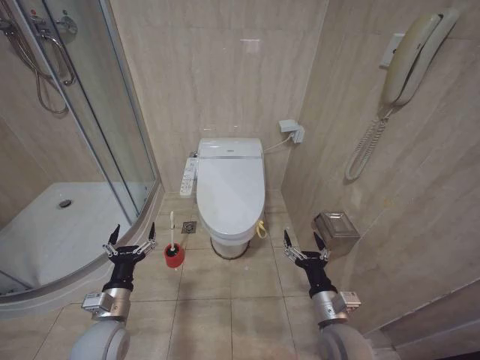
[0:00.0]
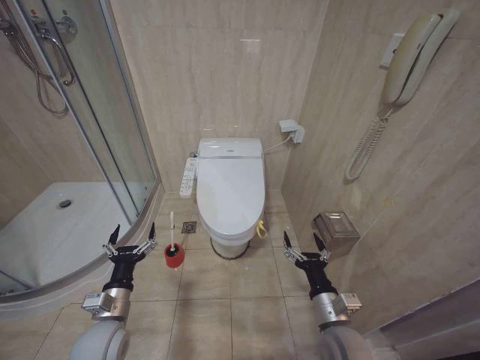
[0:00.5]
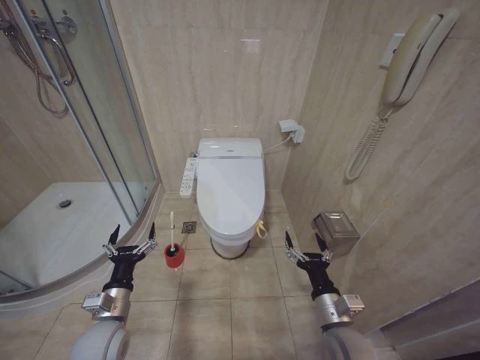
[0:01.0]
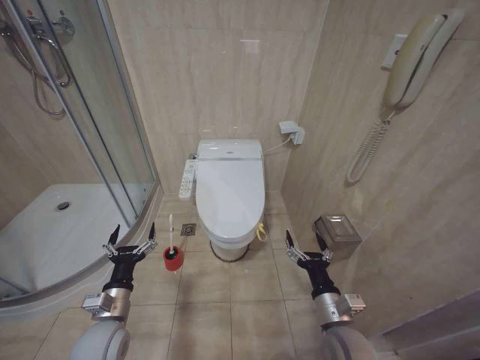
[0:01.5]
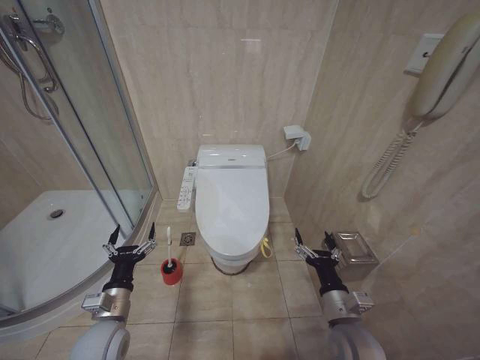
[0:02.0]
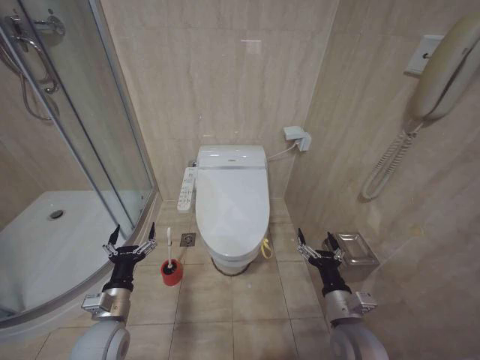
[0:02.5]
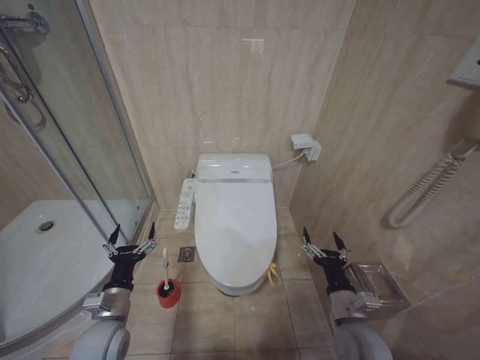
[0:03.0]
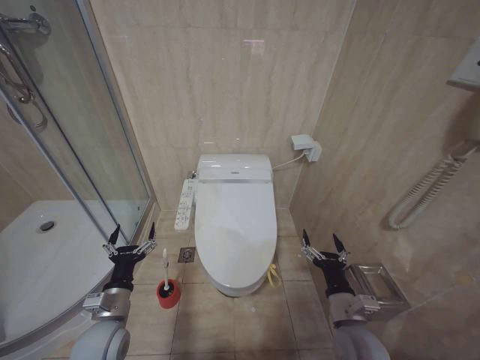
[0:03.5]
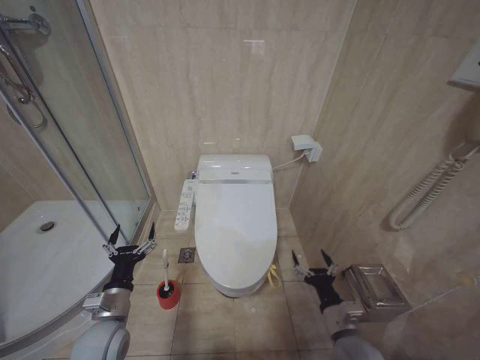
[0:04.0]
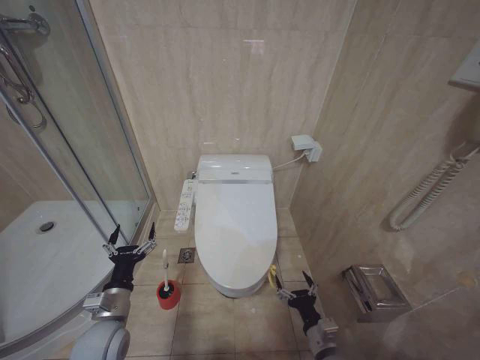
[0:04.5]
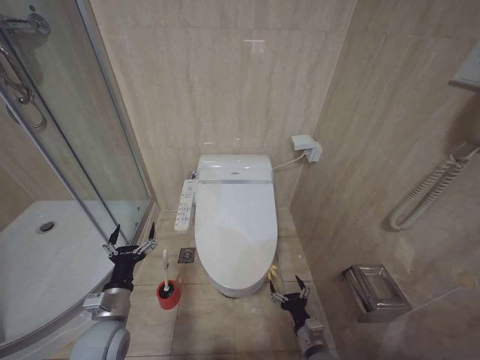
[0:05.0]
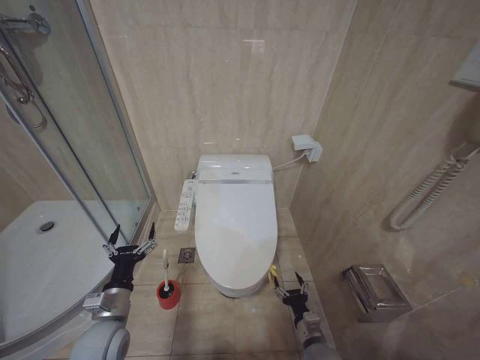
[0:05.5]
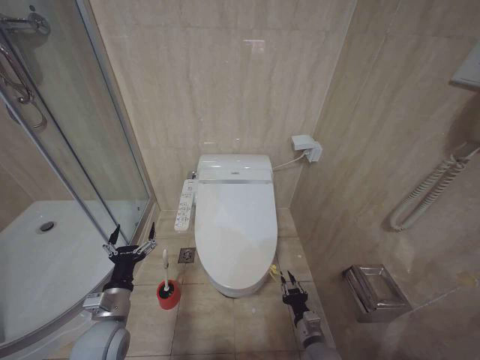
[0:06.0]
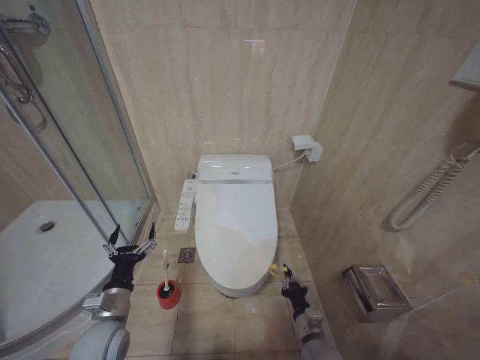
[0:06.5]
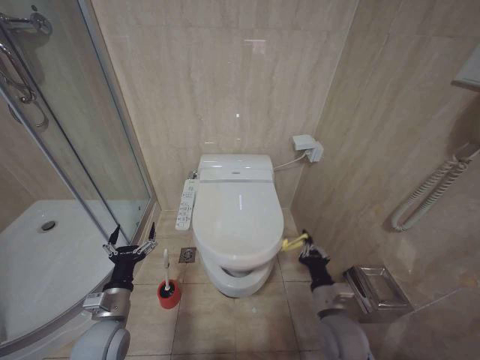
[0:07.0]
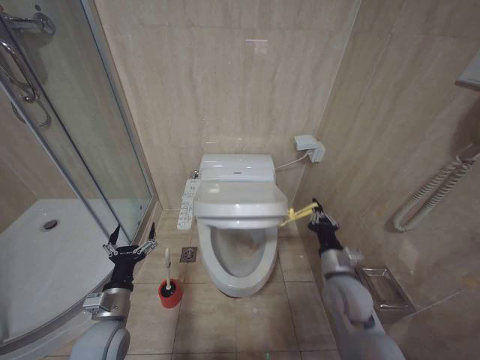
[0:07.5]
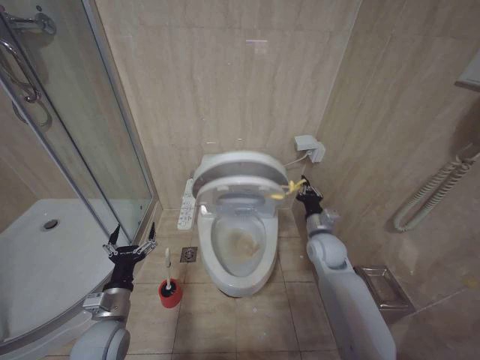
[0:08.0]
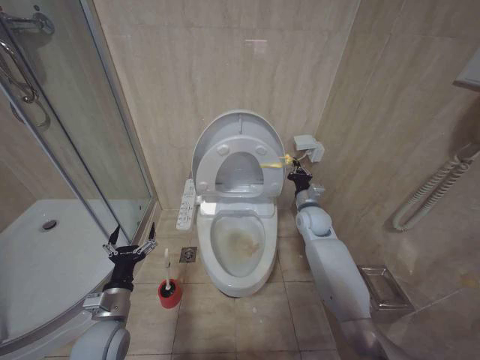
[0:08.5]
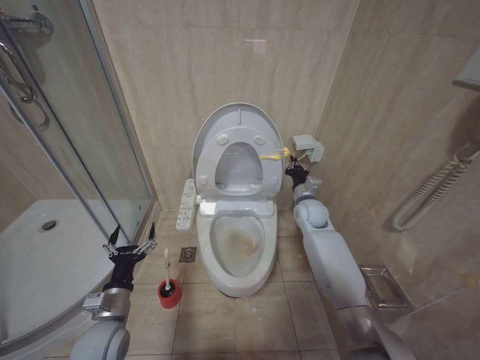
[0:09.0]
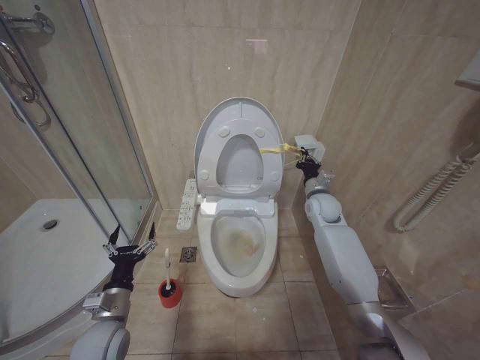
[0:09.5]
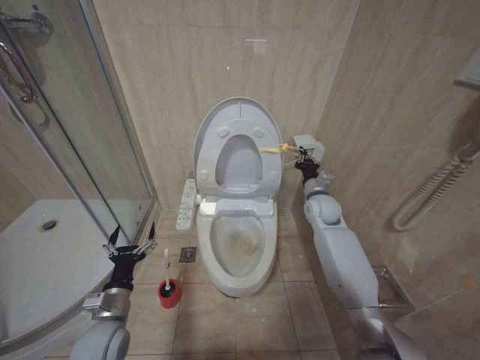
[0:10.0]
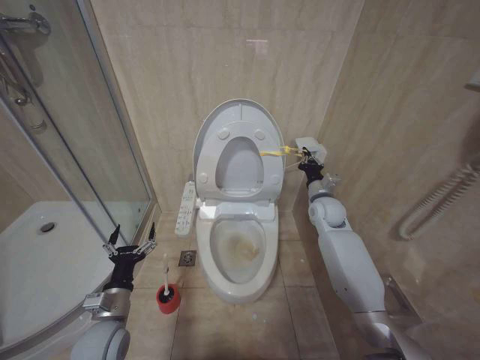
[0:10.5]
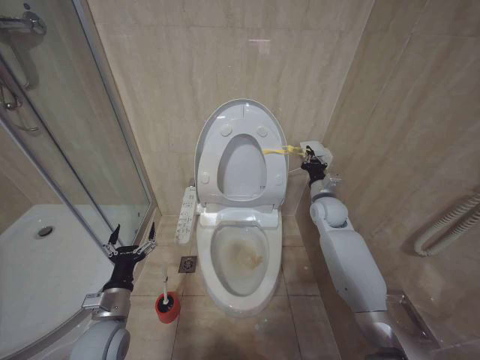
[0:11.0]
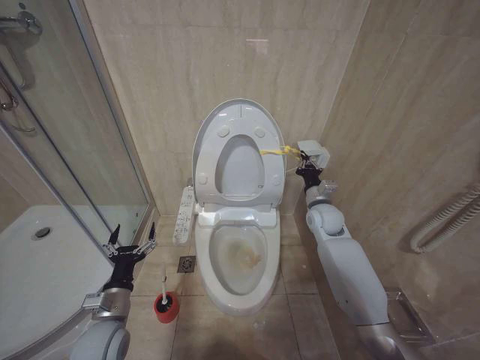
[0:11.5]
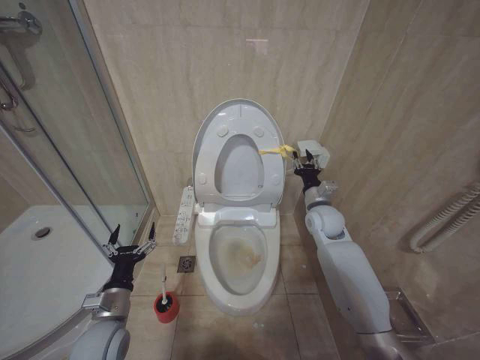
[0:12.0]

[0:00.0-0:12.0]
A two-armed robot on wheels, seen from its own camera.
Task of the whole recording: Open the toilet lid, clean the toilet bowl with a toilet brush, close the toilet lid, and flush.
0:02.0 to 0:04.0: The grippers make only small movements.
0:04.0 to 0:06.0: The right gripper goes some 15 cm downward, and closes.
0:06.0 to 0:08.0: The right gripper travels upward and forward by approximately 30 cm, and closes its fingers.
0:08.0 to 0:10.0: The right gripper moves forward and upward, about 15 cm.
0:10.0 to 0:12.0: The right gripper opens up.

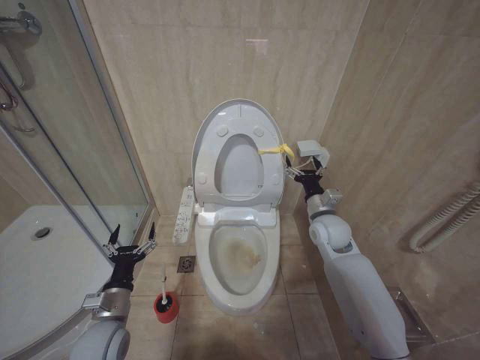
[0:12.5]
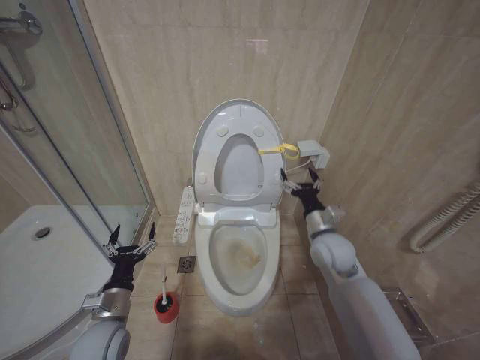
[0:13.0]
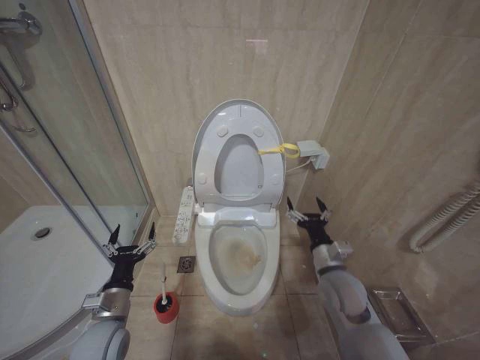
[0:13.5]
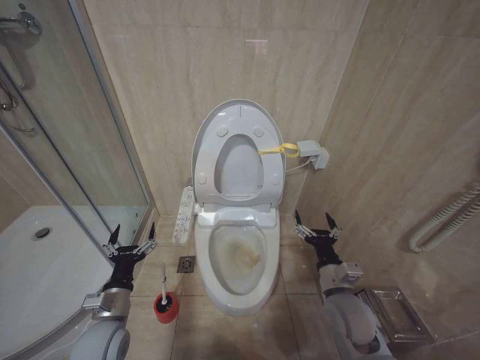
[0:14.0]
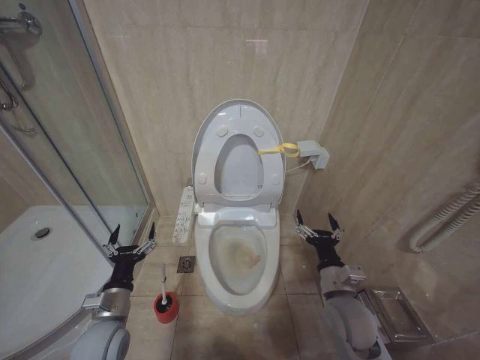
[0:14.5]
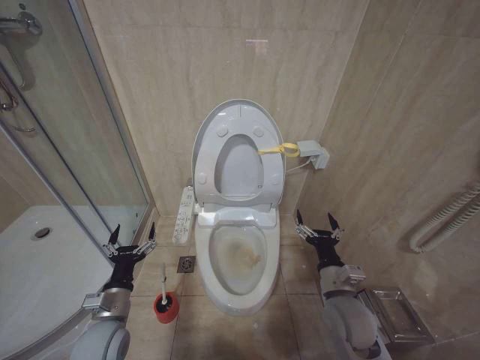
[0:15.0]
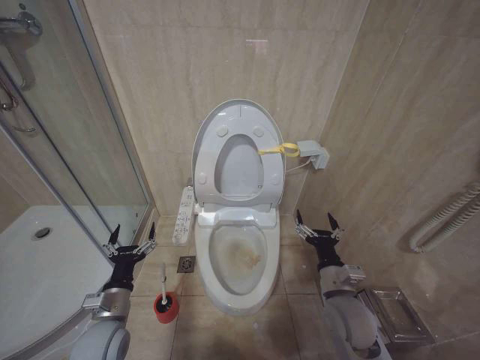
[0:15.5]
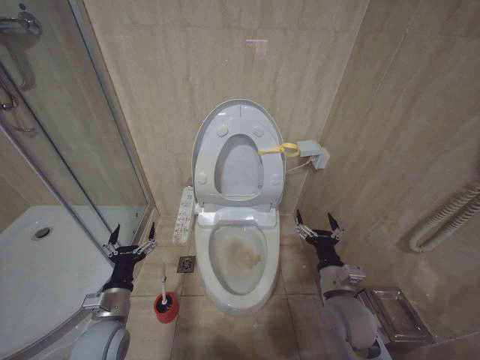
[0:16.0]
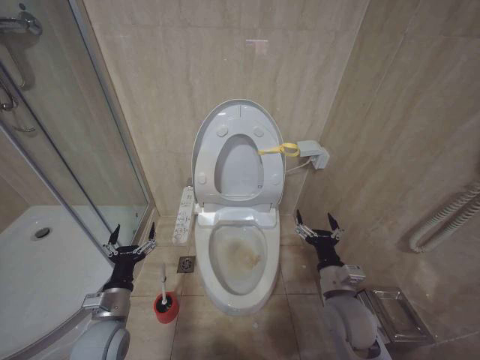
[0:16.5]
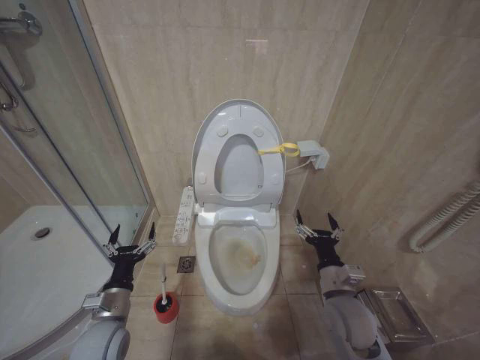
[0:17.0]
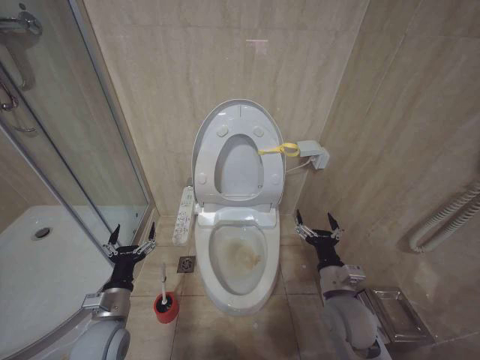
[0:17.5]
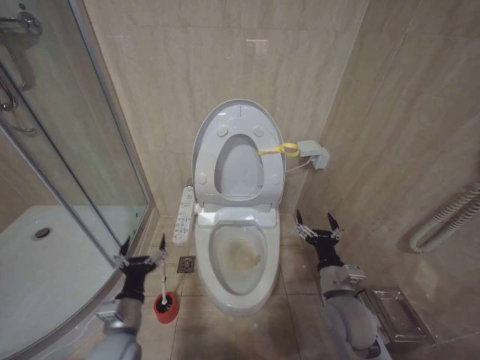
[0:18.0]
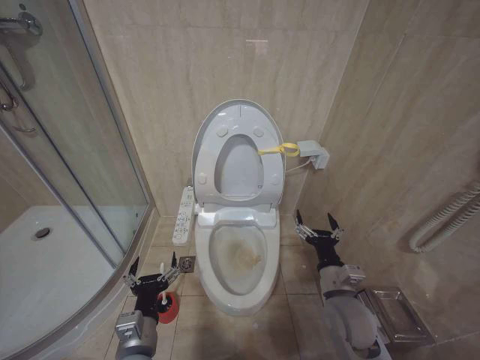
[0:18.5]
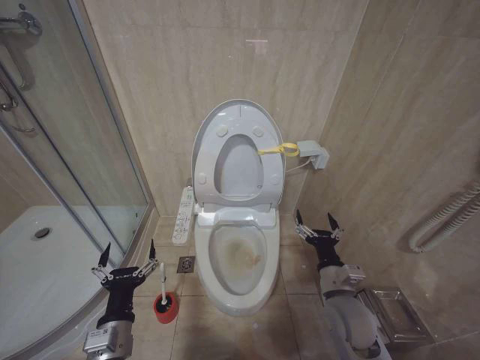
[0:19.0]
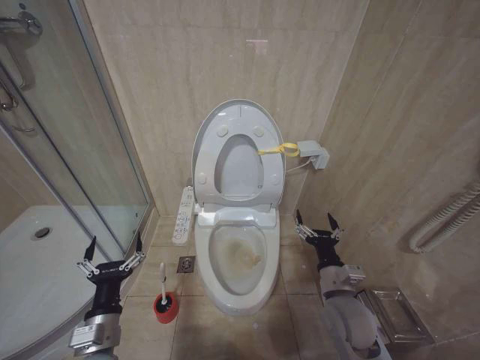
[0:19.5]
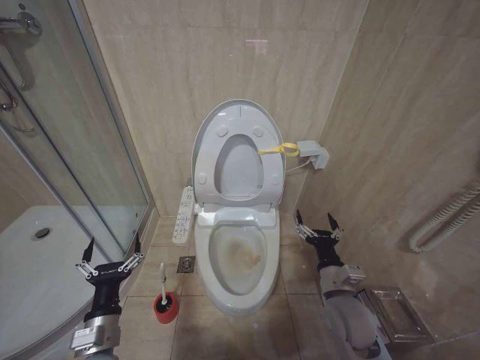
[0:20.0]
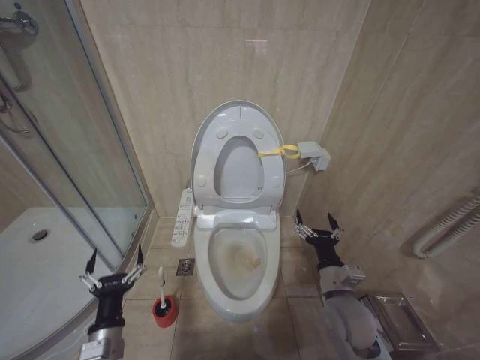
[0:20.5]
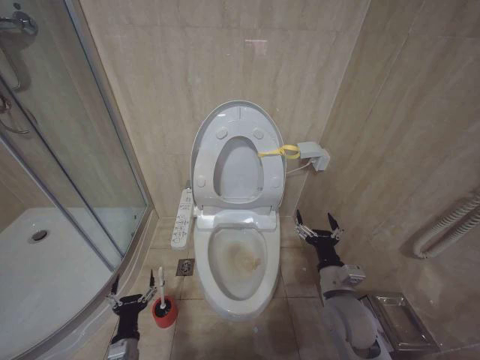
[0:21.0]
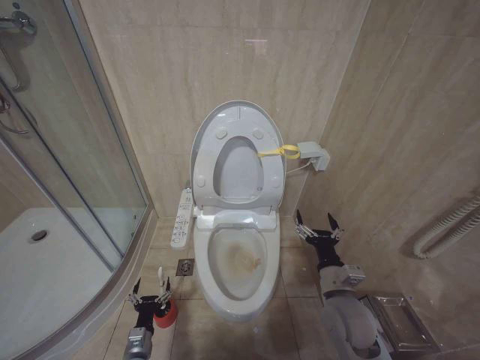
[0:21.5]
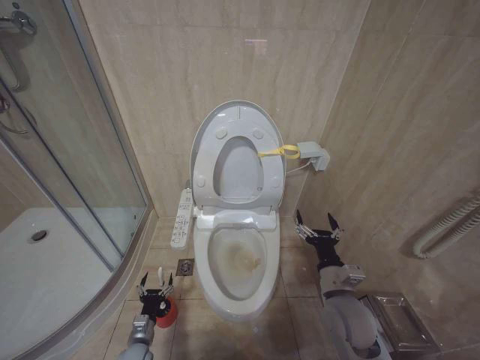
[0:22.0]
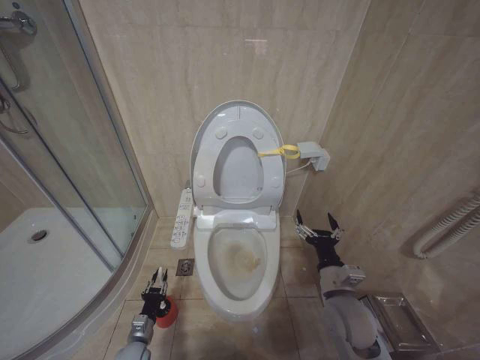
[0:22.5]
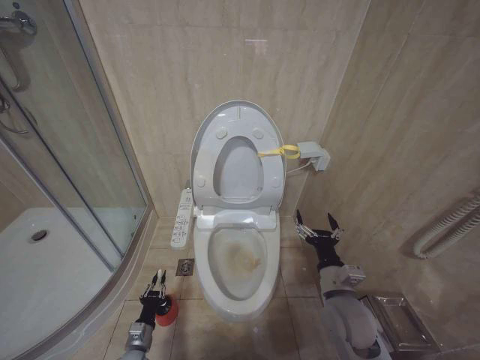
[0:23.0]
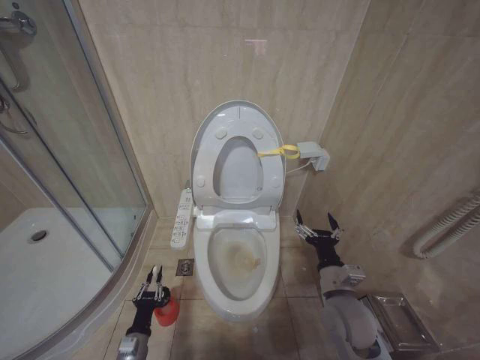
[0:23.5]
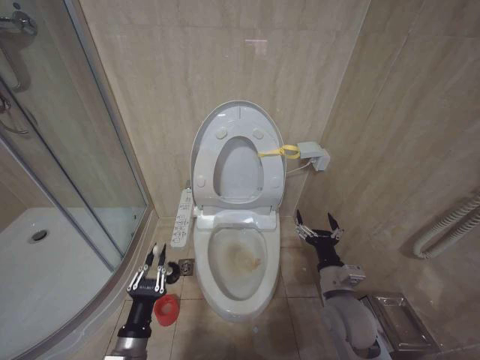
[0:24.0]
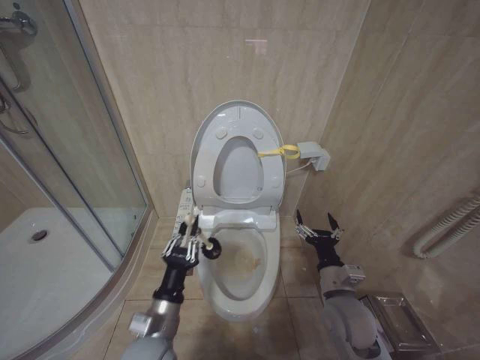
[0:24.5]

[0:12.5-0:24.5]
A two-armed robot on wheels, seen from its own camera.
Task of the whole recording: Open the toilet lid, clean the toilet bowl with a toilet brush, close the toilet lid, and flush.
0:12.5 to 0:14.5: The right gripper travels backward and downward by approximately 20 cm.
0:14.5 to 0:16.5: Both grippers stay about where they are.
0:16.5 to 0:18.5: The left gripper shifts approximately 10 cm to the right and backward.
0:18.5 to 0:20.5: The left gripper travels to the left by approximately 5 cm.
0:20.5 to 0:22.5: The left gripper is displaced downward and forward by about 25 cm.
0:22.5 to 0:24.5: The left gripper heads upward and to the right, covering some 30 cm, and closes up.

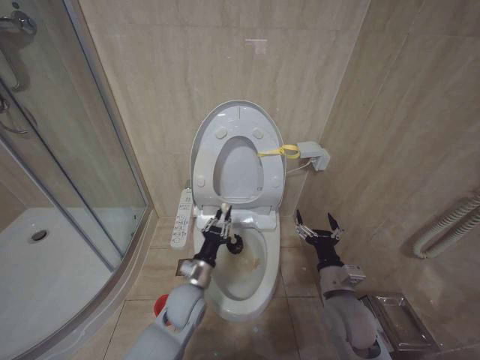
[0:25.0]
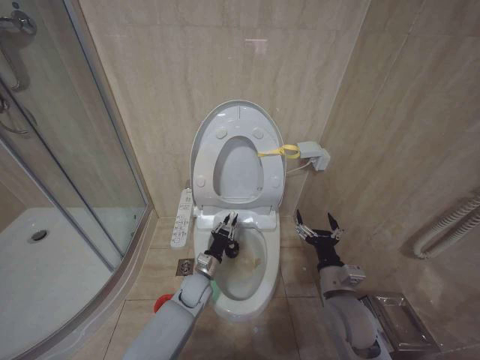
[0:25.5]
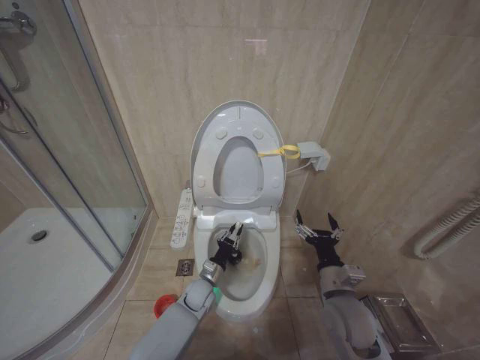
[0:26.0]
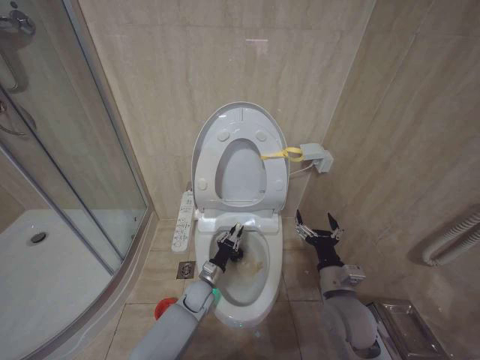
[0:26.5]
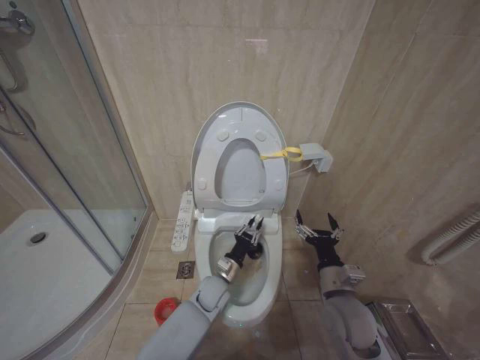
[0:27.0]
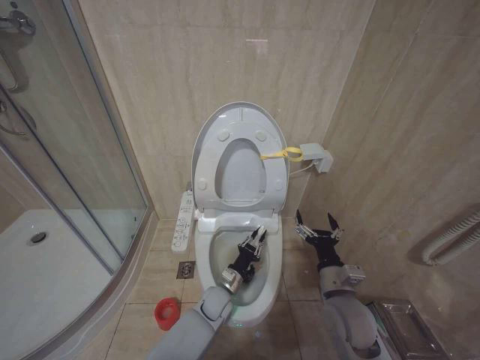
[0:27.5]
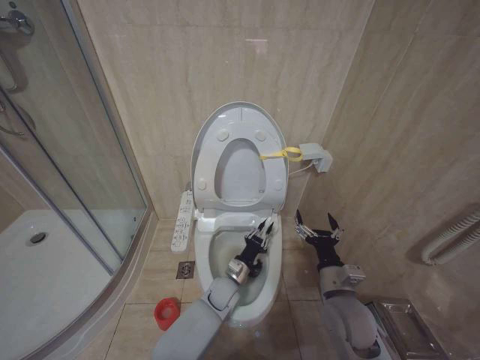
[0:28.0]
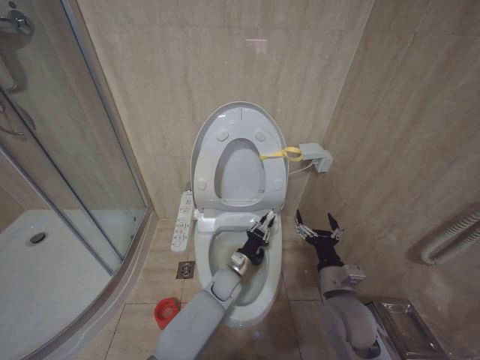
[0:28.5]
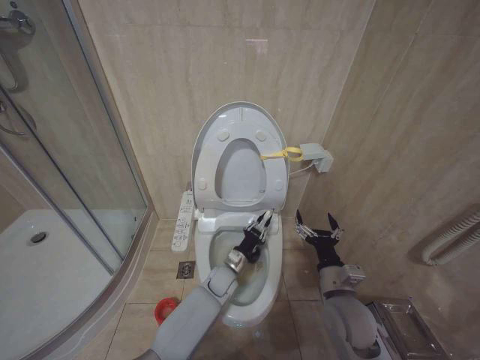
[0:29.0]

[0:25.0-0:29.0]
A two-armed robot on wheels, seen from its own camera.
Task of the whole recording: Open the toilet lid, clean the toilet bowl with a toilet brush, close the toilet lid, and flush.
0:25.0 to 0:27.0: The left gripper goes about 15 cm downward, forward and to the right.
0:27.0 to 0:29.0: The grippers move only a little.
